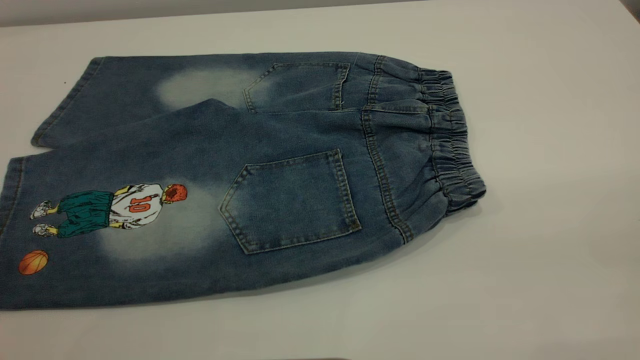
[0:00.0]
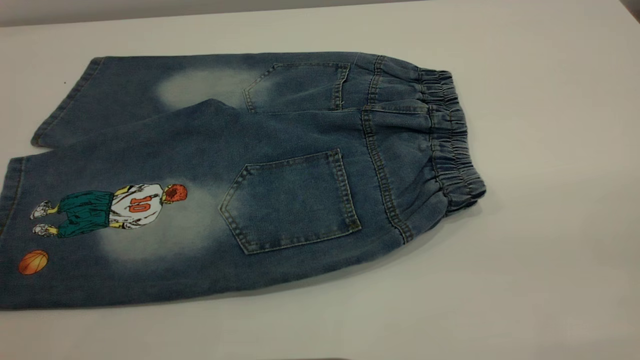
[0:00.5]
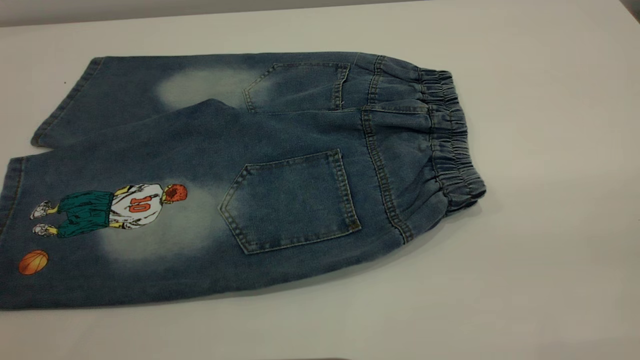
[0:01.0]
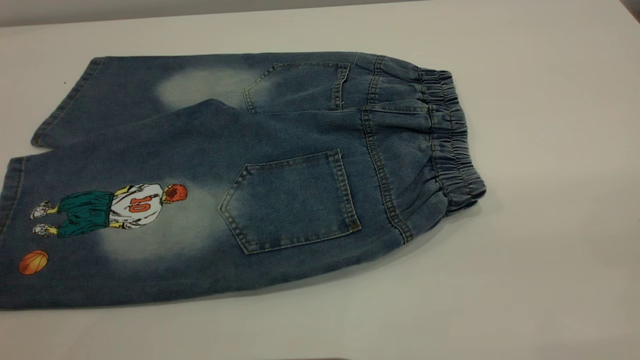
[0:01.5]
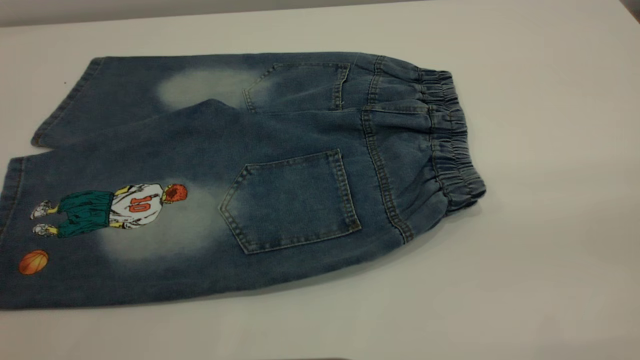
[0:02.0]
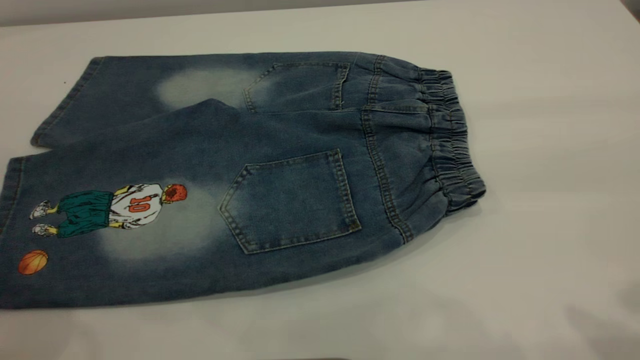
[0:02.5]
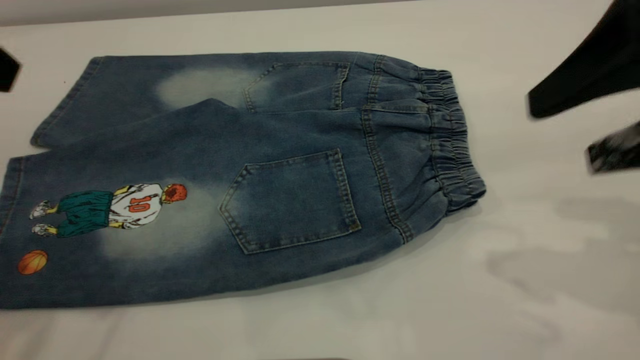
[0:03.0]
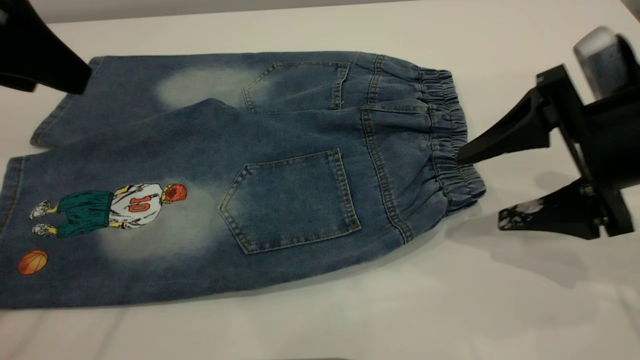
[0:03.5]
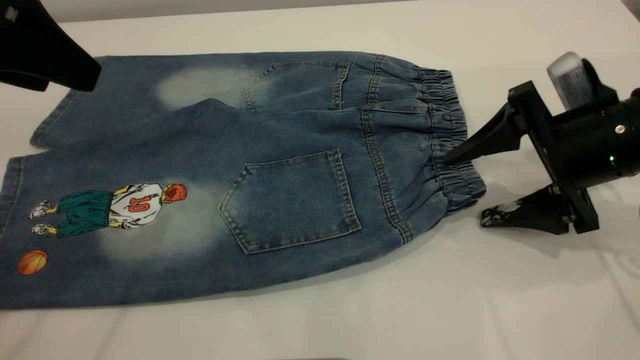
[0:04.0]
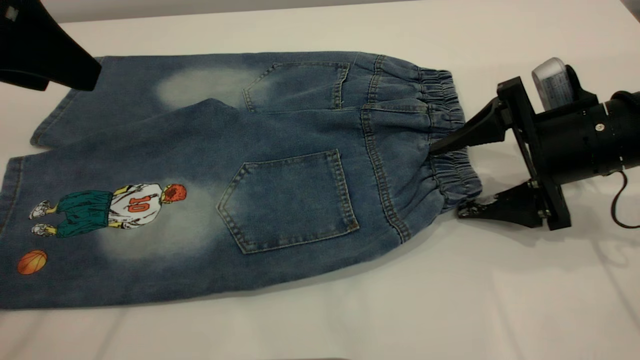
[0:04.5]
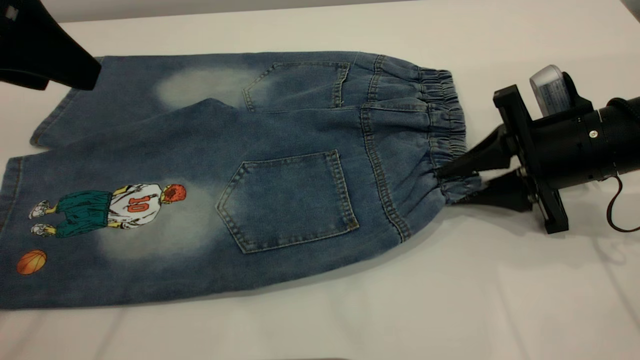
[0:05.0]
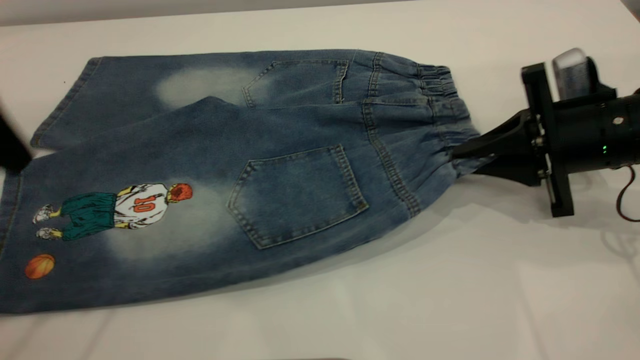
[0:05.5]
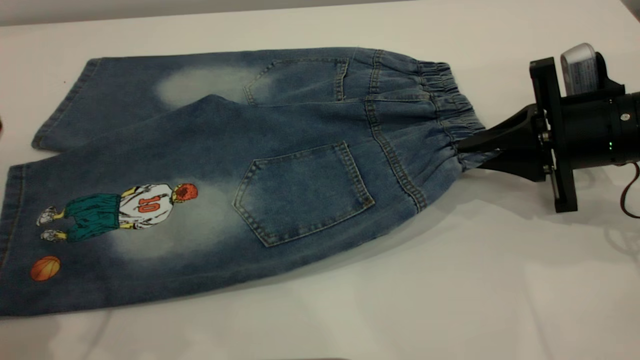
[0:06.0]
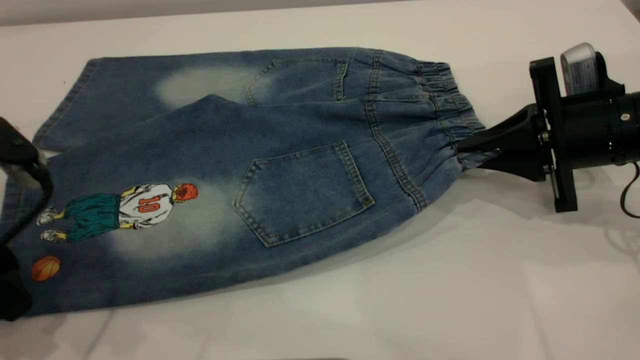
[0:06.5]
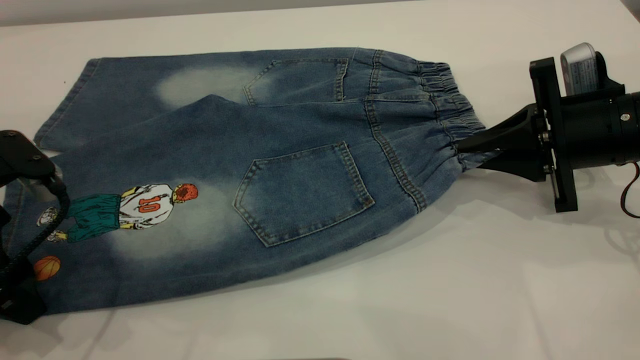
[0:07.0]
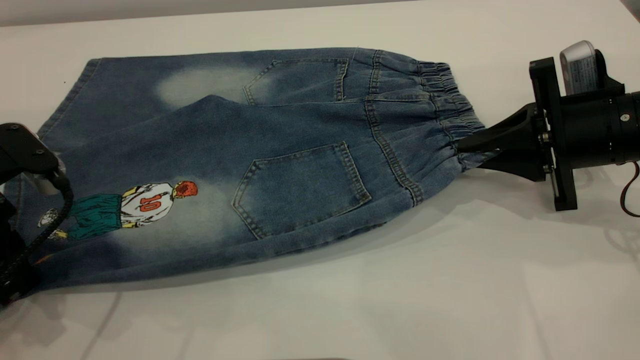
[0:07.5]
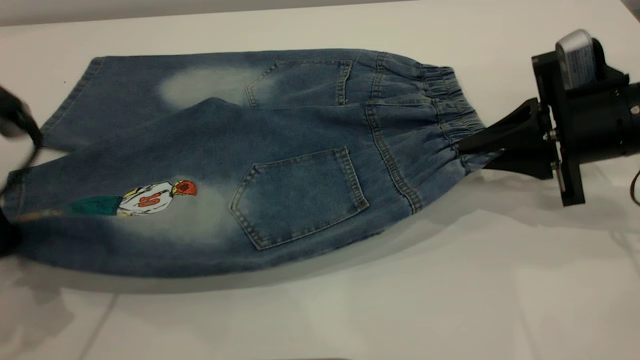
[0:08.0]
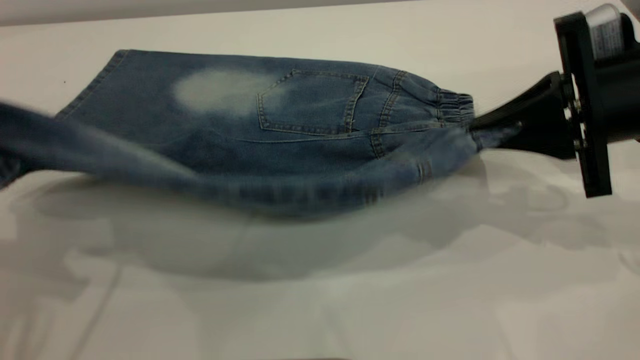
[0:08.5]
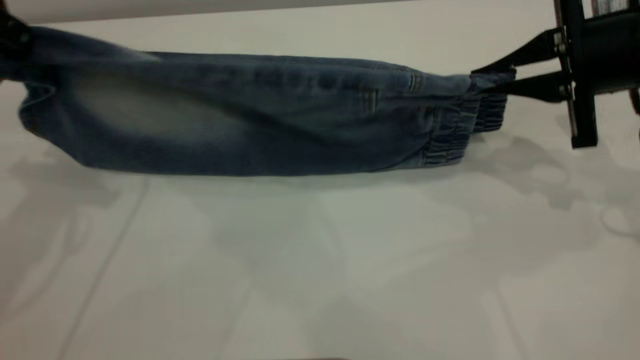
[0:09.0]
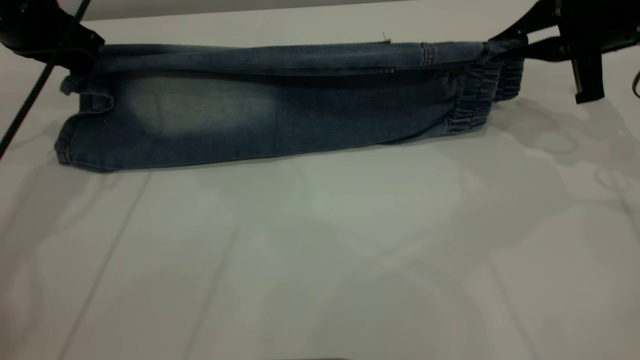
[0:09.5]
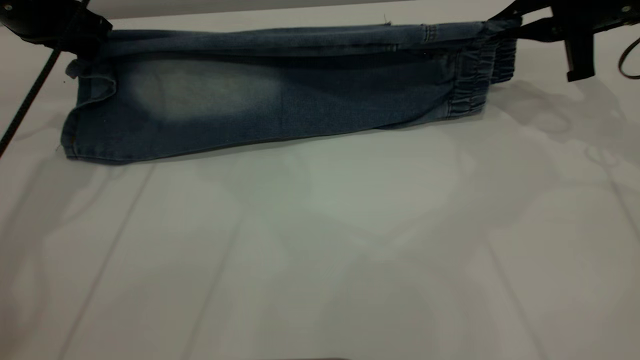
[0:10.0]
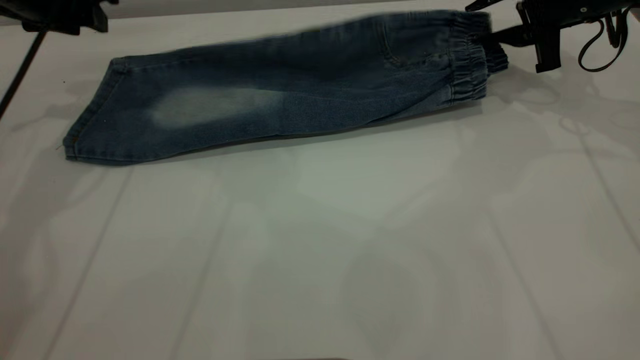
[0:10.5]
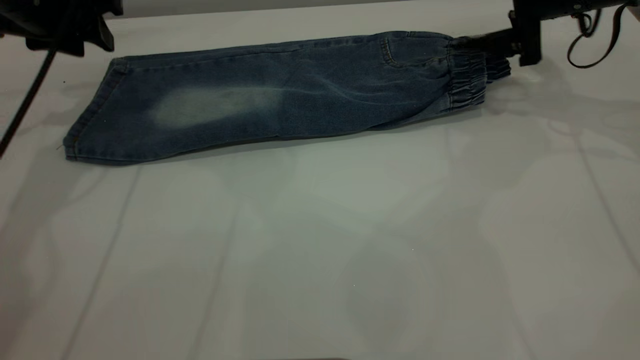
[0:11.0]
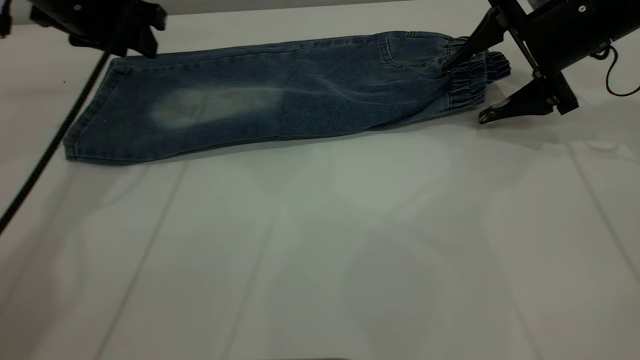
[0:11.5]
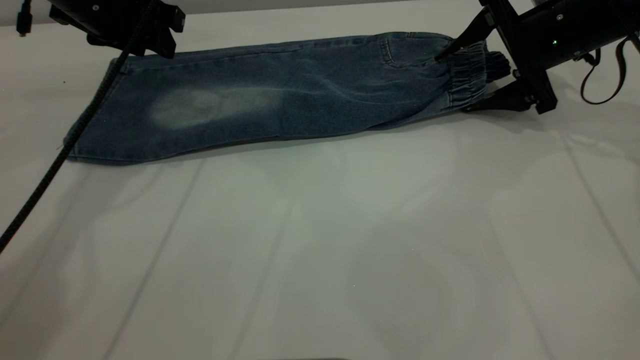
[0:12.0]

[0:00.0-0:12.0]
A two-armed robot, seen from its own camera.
Step, 0:00.0 to 0:11.0: Fold the bottom of the pants upward.
0:02.0 to 0:04.0: The left gripper moves forward, some 25 cm, while the right gripper is displaced forward and downward by approximately 35 cm.
0:04.0 to 0:06.0: The right gripper closes its fingers, while the left gripper moves downward and backward, about 10 cm.
0:06.0 to 0:08.0: The left gripper closes up.
0:08.0 to 0:10.0: The left gripper is displaced forward by approximately 20 cm; the right gripper moves forward and upward, about 10 cm.
0:10.0 to 0:12.0: The left gripper heads to the right, covering approximately 5 cm, and opens its fingers, while the right gripper moves some 5 cm, and opens.

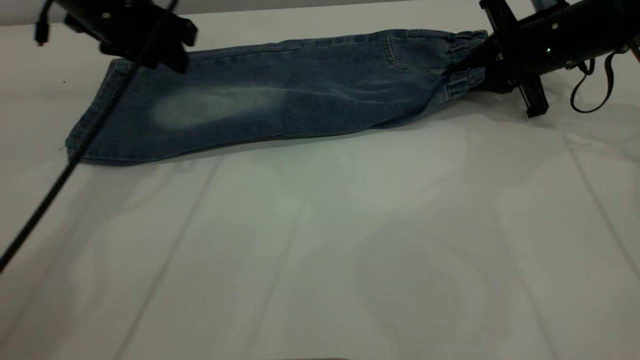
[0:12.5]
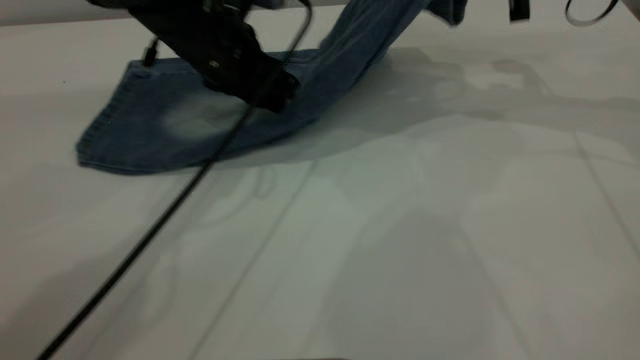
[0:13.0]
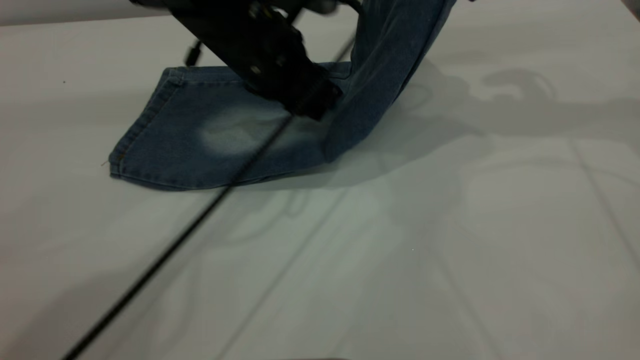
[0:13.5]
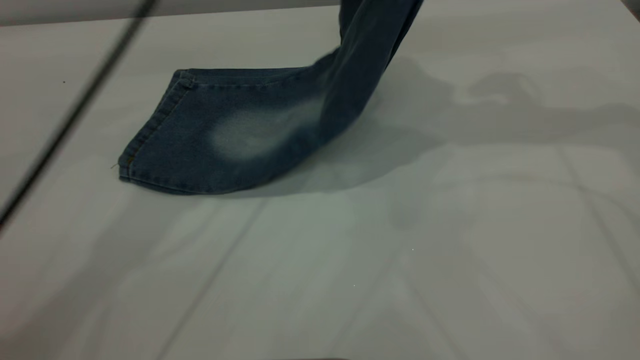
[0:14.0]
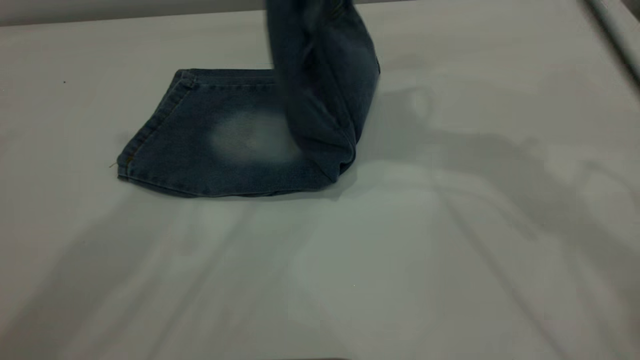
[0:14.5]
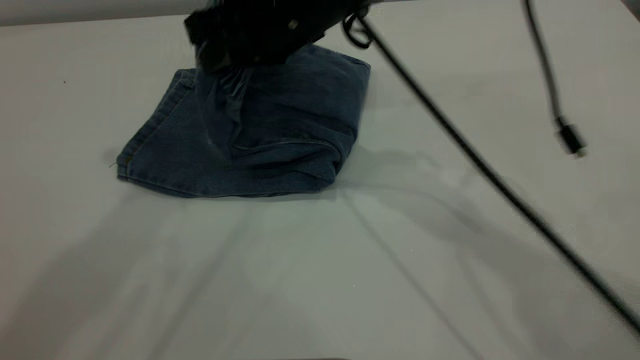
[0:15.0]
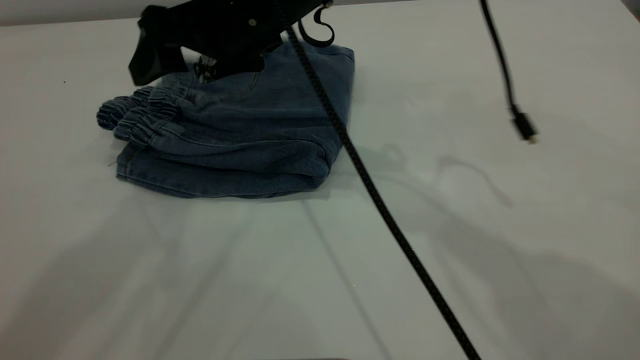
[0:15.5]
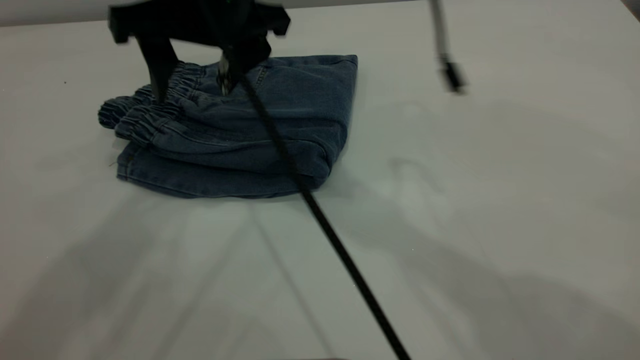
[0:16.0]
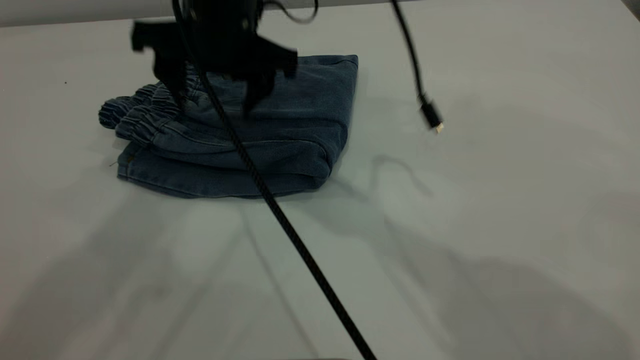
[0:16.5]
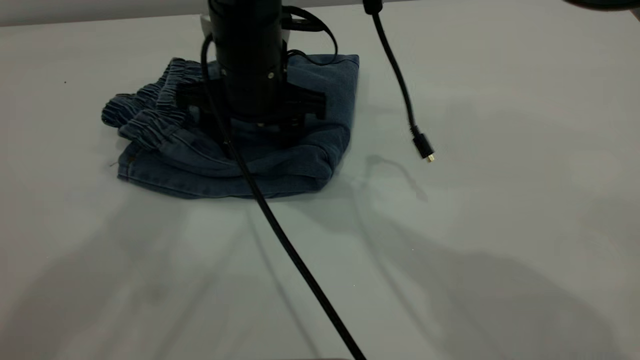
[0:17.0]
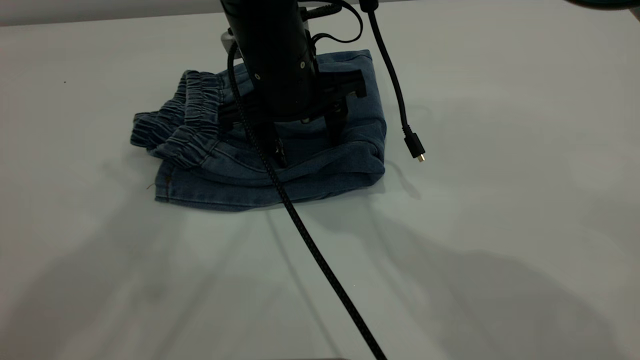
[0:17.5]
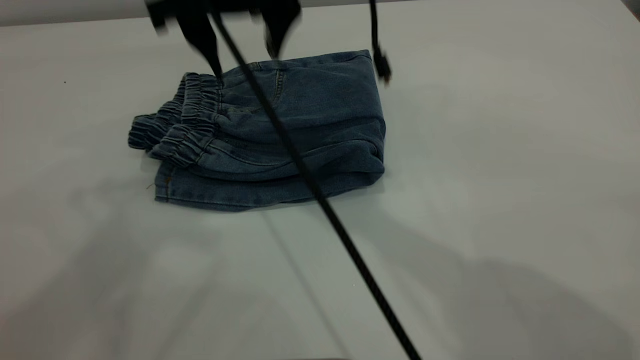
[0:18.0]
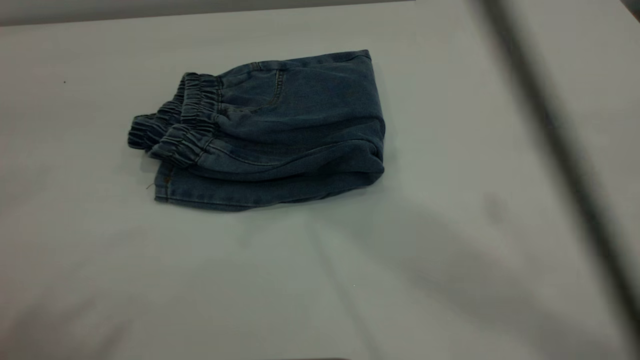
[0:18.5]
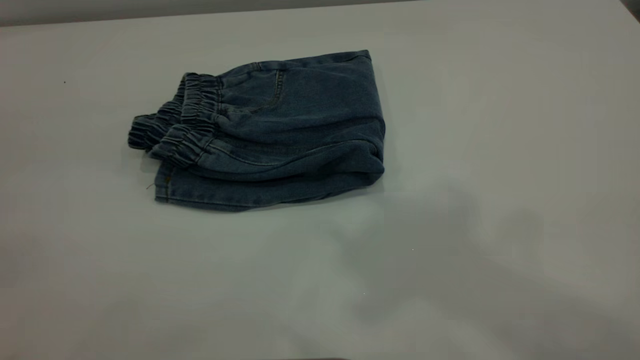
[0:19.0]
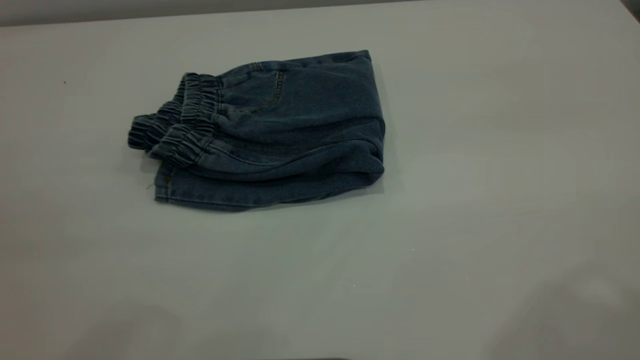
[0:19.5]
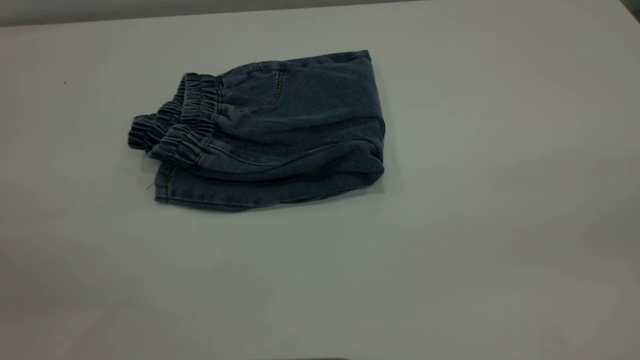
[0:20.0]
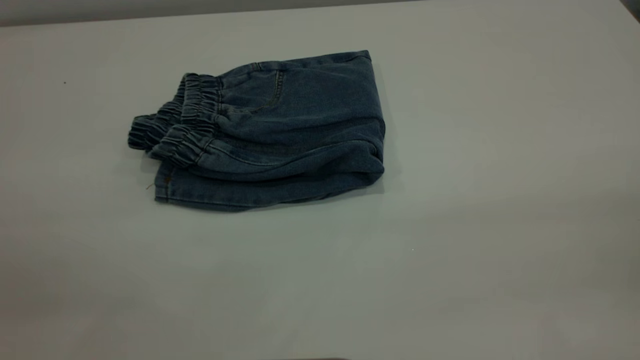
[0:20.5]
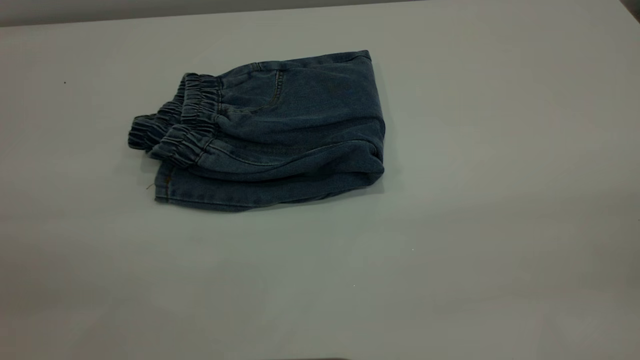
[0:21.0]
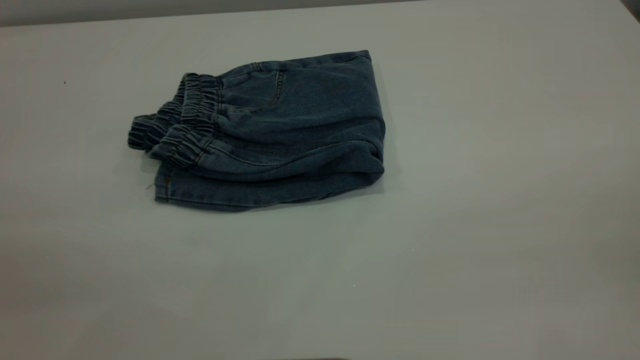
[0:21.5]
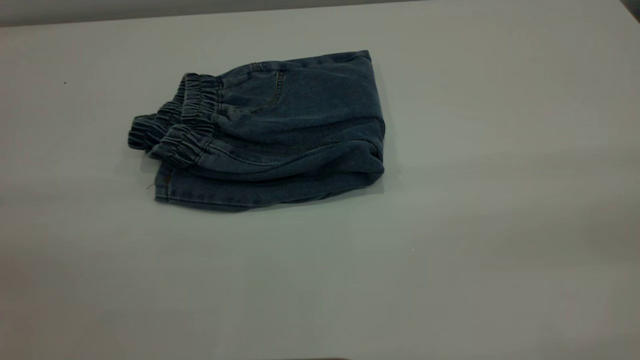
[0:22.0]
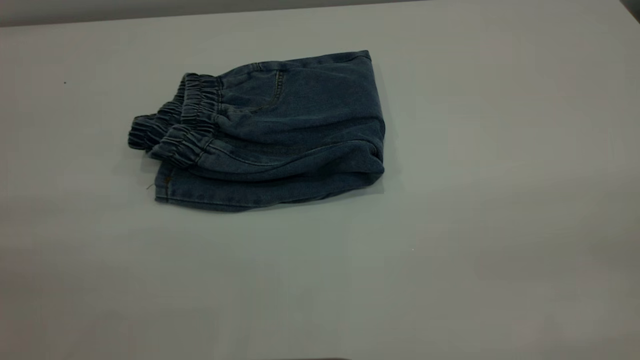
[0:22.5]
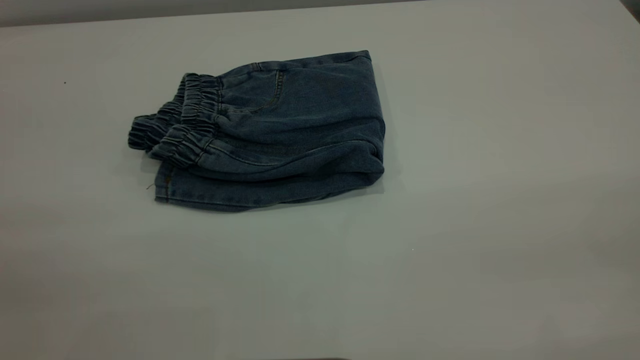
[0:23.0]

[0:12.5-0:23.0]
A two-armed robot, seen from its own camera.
Step, 0:12.5 to 0:15.5: Fold your pants from right to left.
0:12.5 to 0:14.5: The right gripper travels to the left and upward by roughly 25 cm; the left gripper is displaced upward by approximately 30 cm.
0:14.5 to 0:16.5: The right gripper is displaced to the left and downward by some 15 cm, and opens.
0:16.5 to 0:19.0: The right gripper travels upward, backward and to the right by some 50 cm; the left gripper heads backward and to the left, covering roughly 25 cm.
